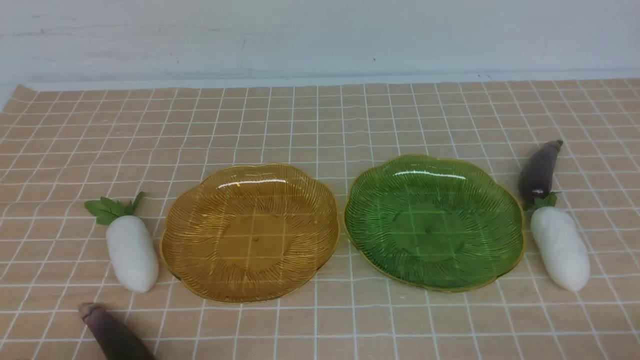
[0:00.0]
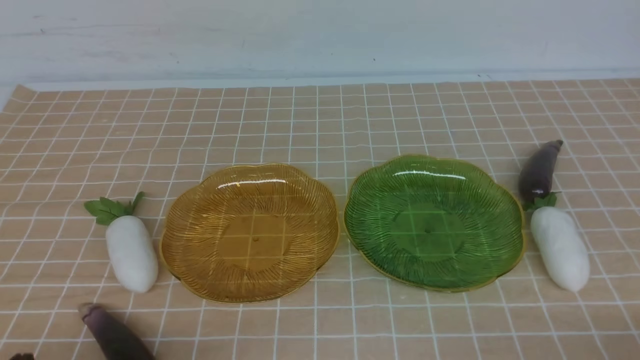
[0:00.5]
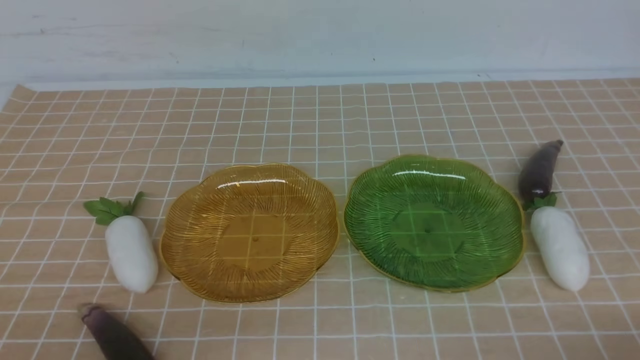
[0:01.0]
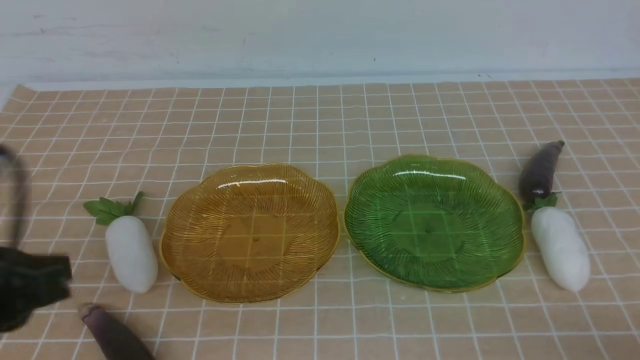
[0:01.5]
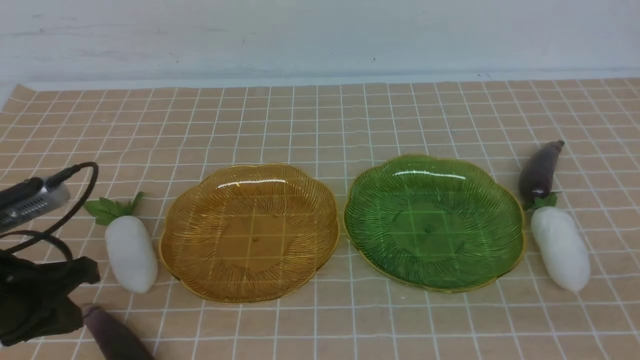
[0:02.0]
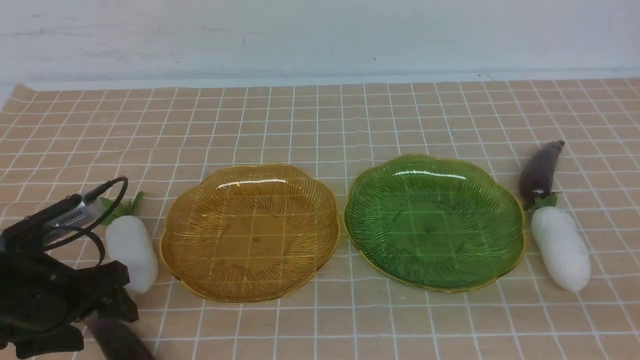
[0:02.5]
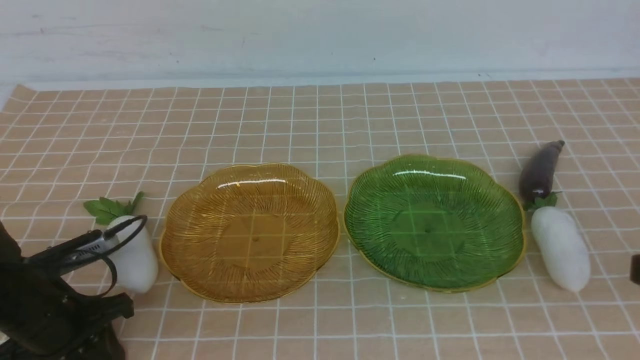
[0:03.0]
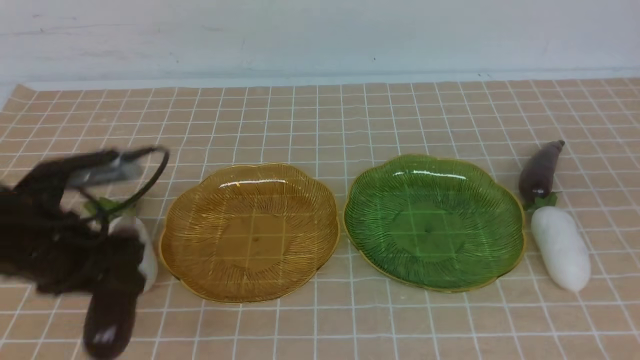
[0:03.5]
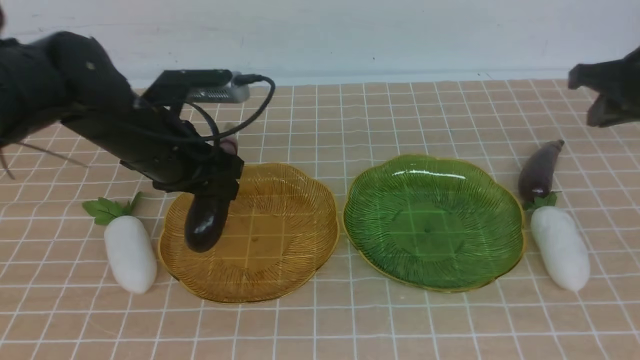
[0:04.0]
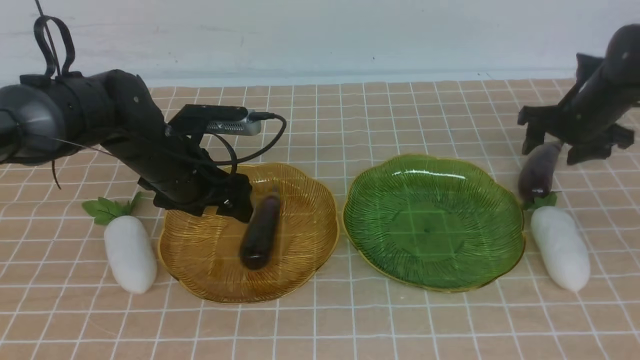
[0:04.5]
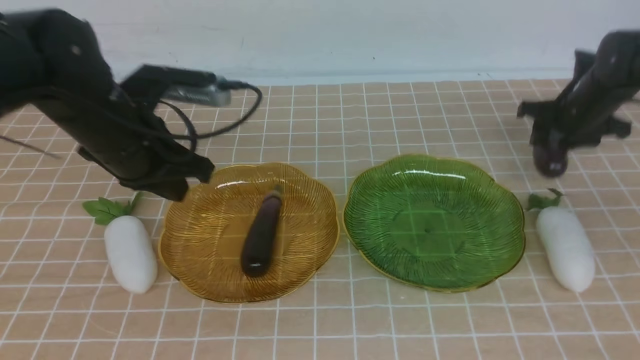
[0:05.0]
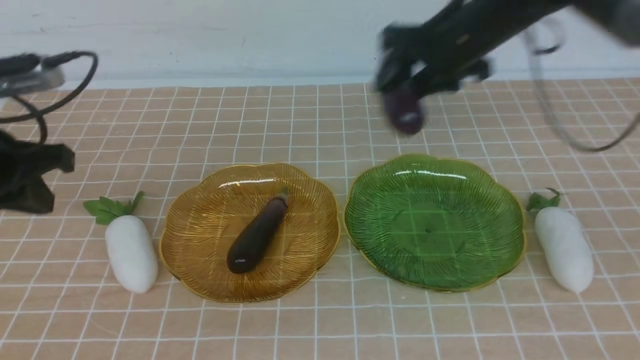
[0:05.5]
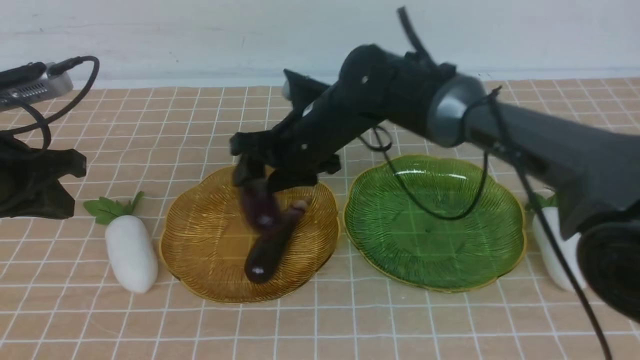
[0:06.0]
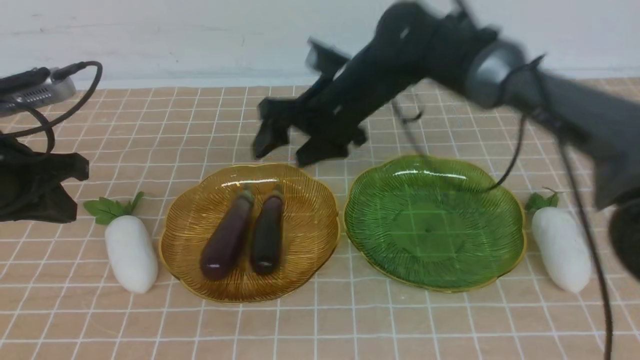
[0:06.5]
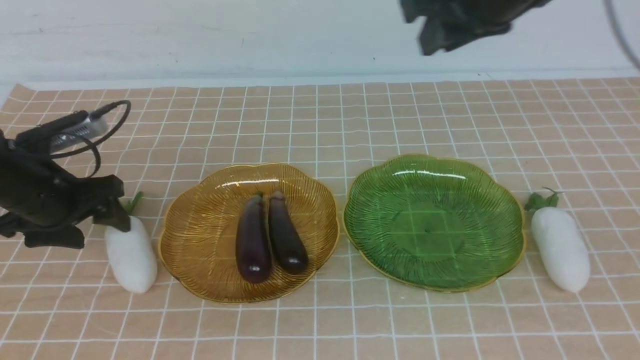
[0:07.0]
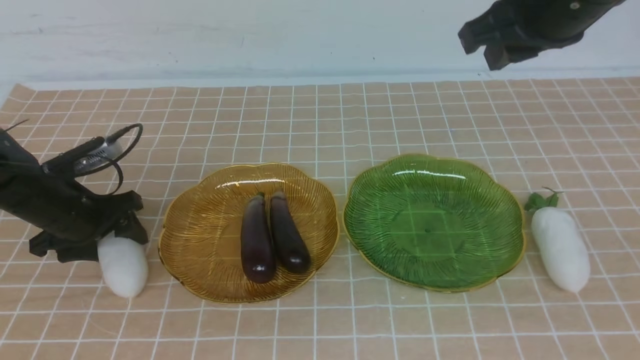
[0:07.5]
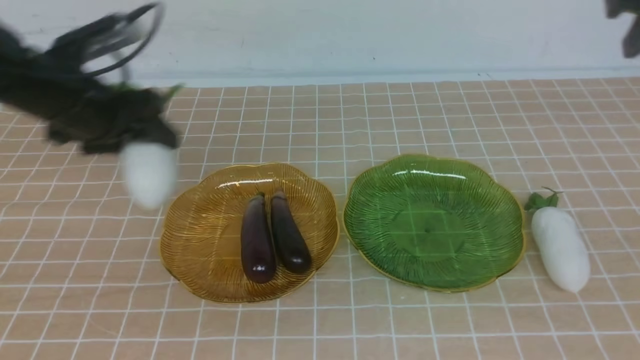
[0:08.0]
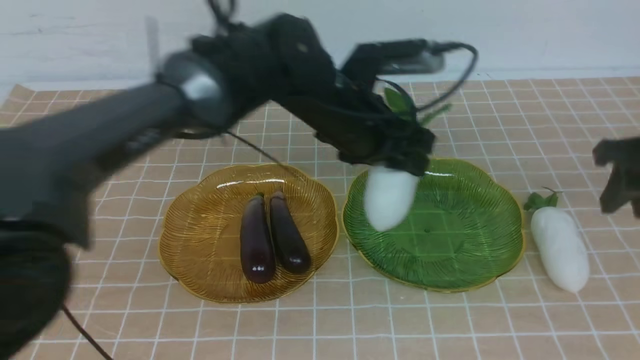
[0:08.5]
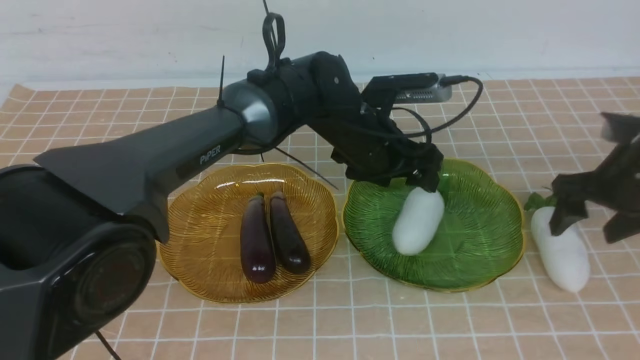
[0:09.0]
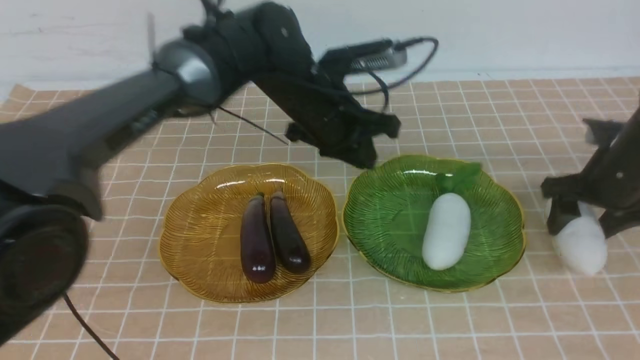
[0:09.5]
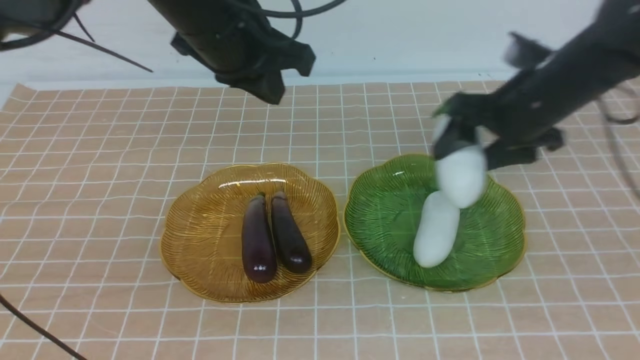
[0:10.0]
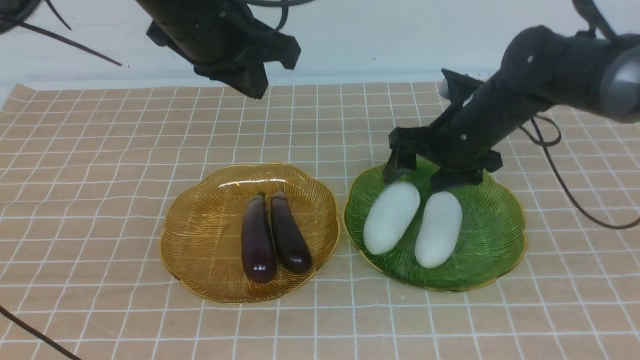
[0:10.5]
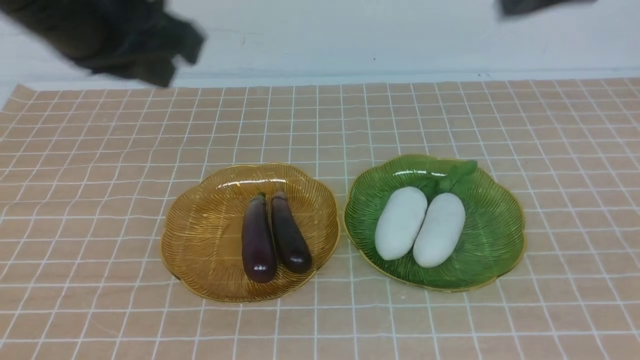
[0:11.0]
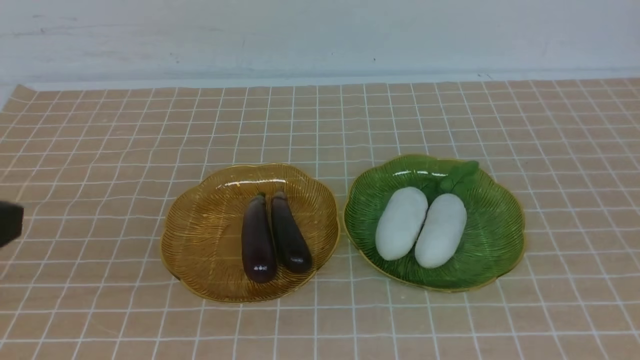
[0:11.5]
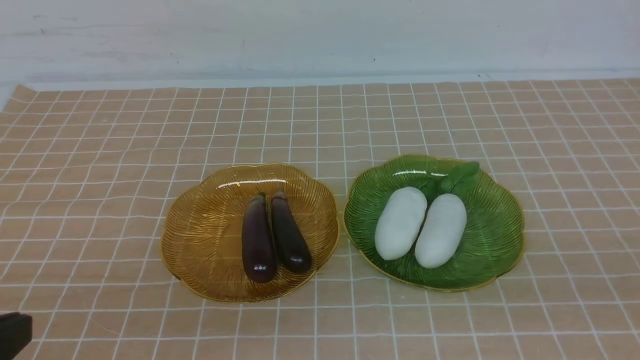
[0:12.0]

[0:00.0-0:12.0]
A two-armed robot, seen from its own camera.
Step, 0:00.0 to 0:04.5: use the left arm to grab an eggplant and put it into the left plate.
Step, 0:05.0 to 0:06.0: use the right arm to grab an eggplant and put it into the left plate.
Step, 0:06.5 to 0:09.0: use the left arm to grab a radish and put it into the right plate.
Step, 0:09.5 to 0:10.5: use the right arm to grab a radish and put it into the right plate.
0:00.0 to 0:02.0: The left gripper travels forward and upward by roughly 15 cm.
0:02.0 to 0:04.0: The right gripper heads forward, covering approximately 35 cm. Meanwhile the left gripper goes about 20 cm forward and to the right, and opens up.
0:04.0 to 0:06.0: The right gripper heads to the left, covering about 30 cm, and opens; the left gripper heads to the left and backward, covering approximately 15 cm, and closes its fingers.
0:06.0 to 0:08.0: Both grippers move to the right, some 30 cm. The right gripper closes up, while the left gripper opens up.
0:08.0 to 0:10.0: The right gripper moves to the left, approximately 15 cm, and opens up, while the left gripper heads upward and to the left, covering some 10 cm, and closes its fingers.
0:10.0 to 0:12.0: The right gripper goes approximately 35 cm backward, and closes, while the left gripper shifts some 35 cm backward and to the left.
